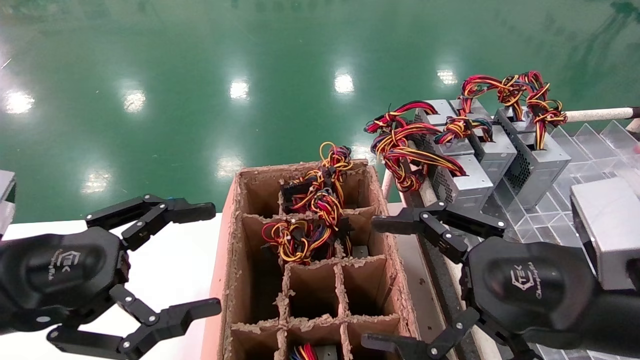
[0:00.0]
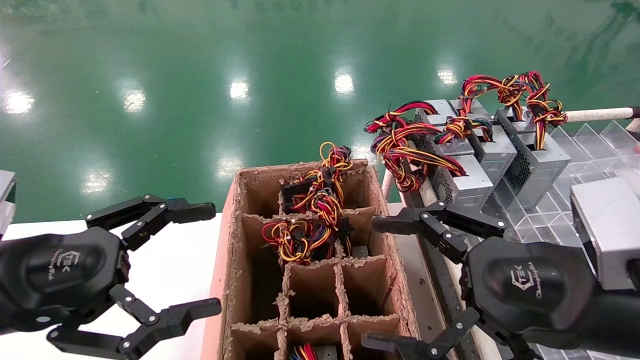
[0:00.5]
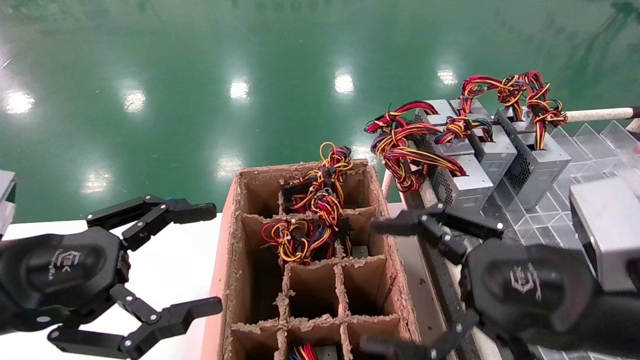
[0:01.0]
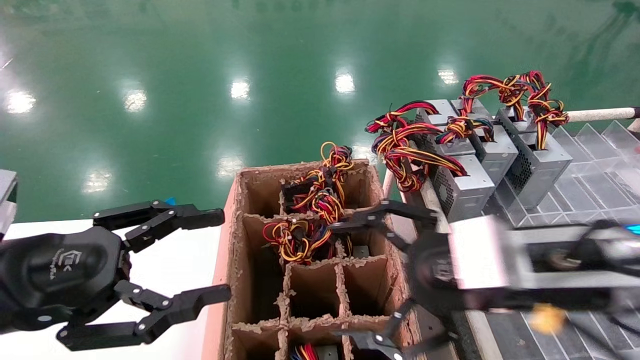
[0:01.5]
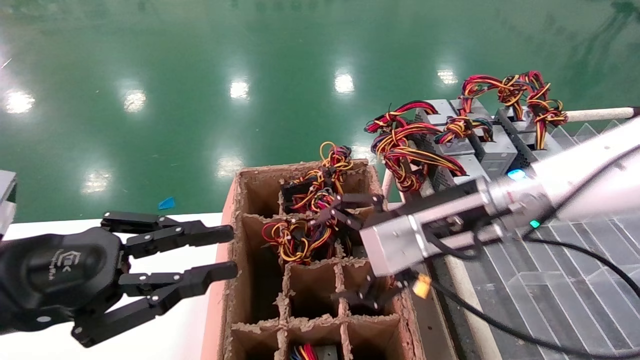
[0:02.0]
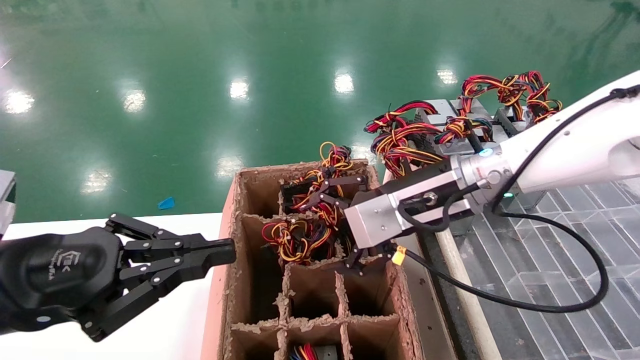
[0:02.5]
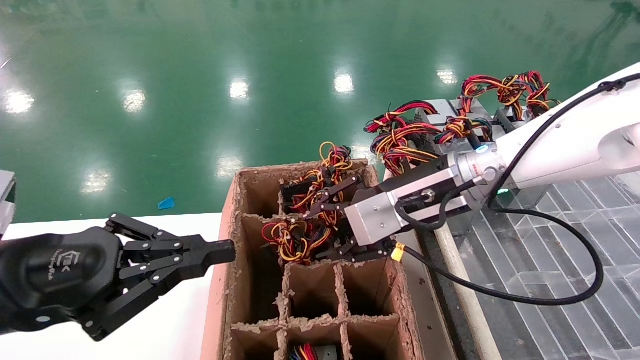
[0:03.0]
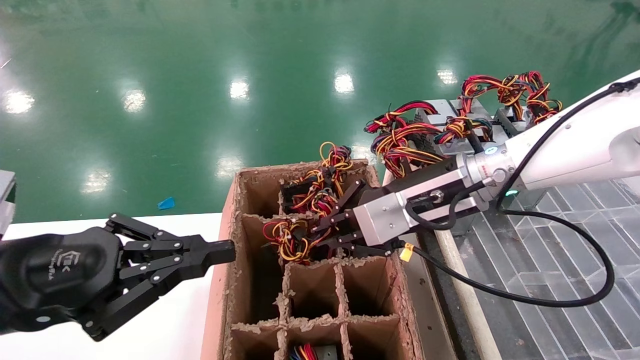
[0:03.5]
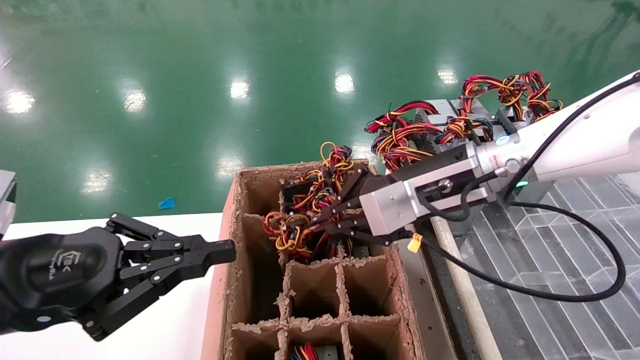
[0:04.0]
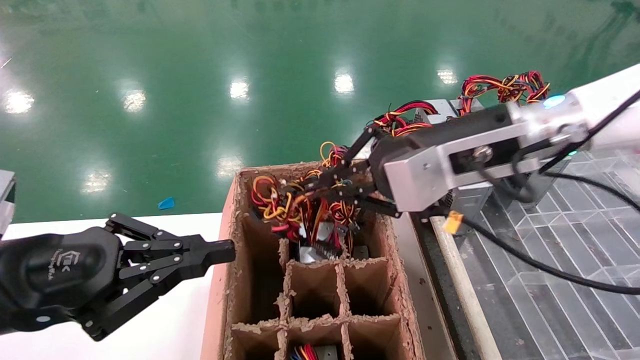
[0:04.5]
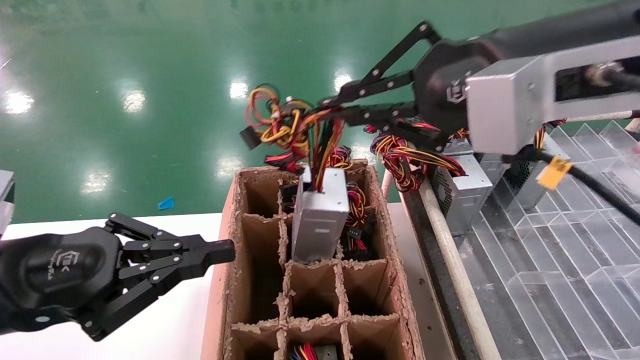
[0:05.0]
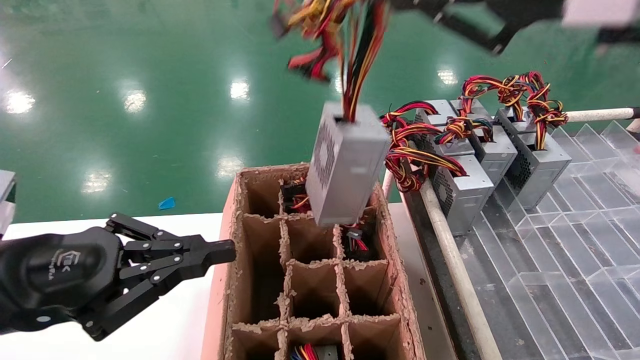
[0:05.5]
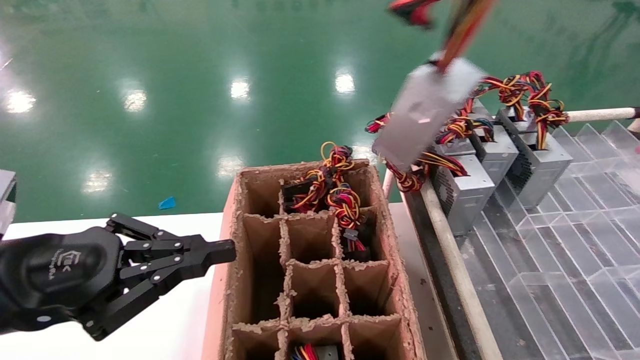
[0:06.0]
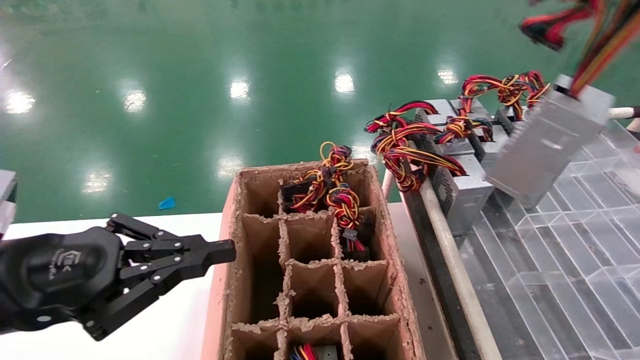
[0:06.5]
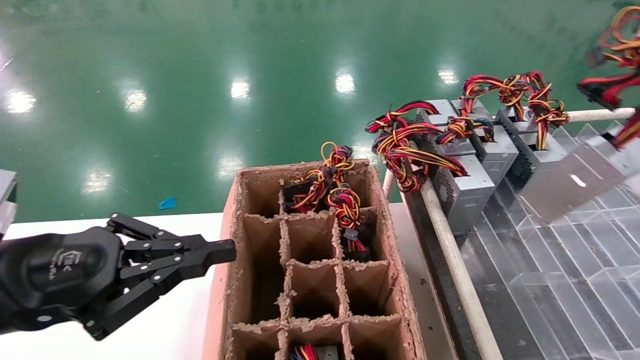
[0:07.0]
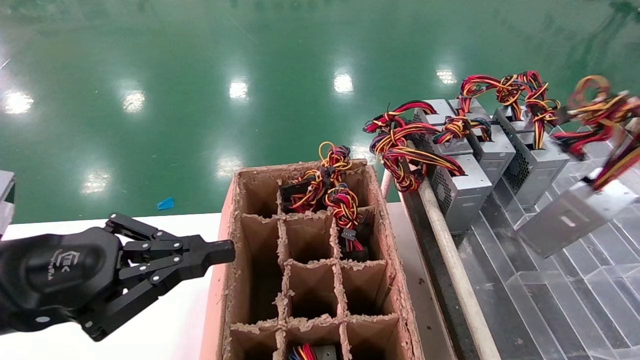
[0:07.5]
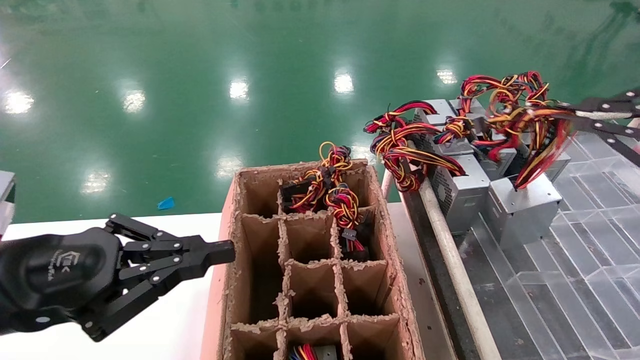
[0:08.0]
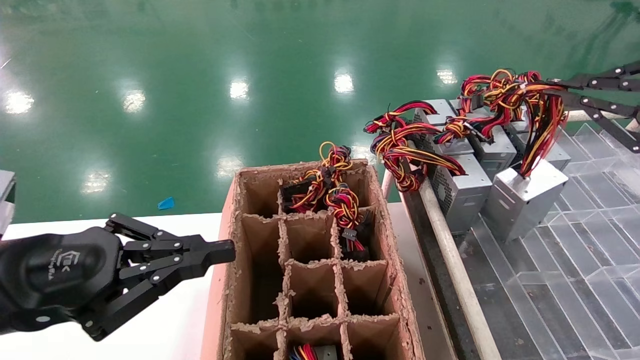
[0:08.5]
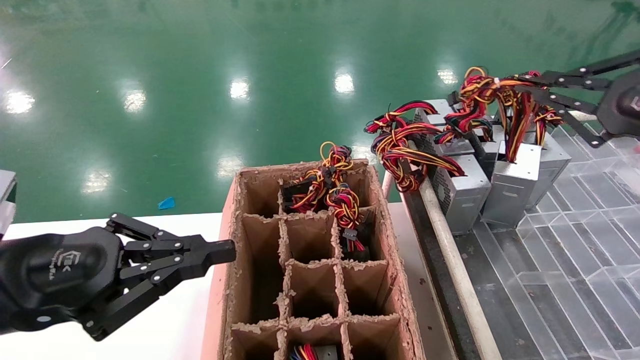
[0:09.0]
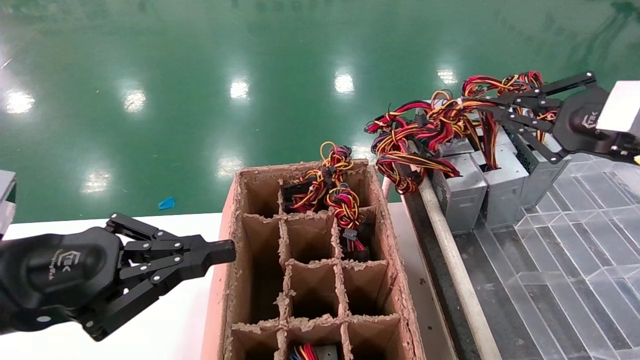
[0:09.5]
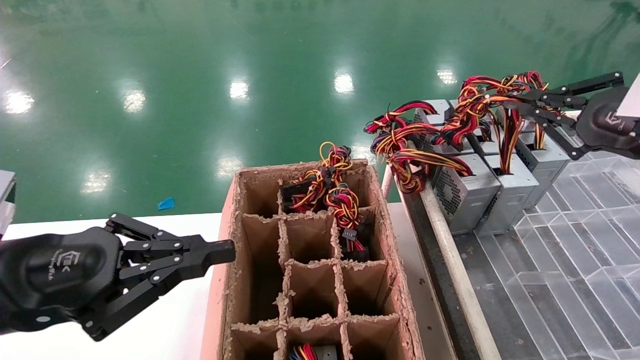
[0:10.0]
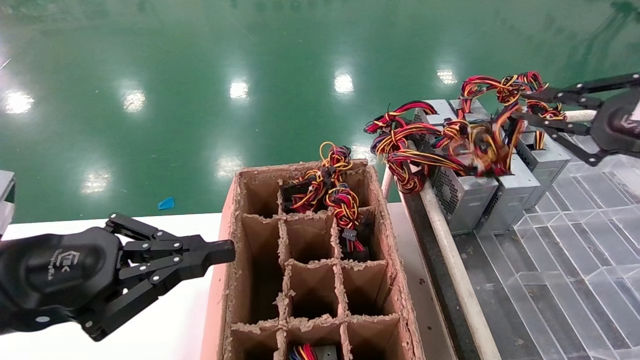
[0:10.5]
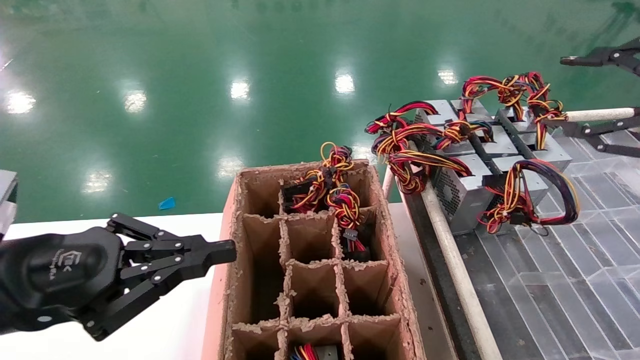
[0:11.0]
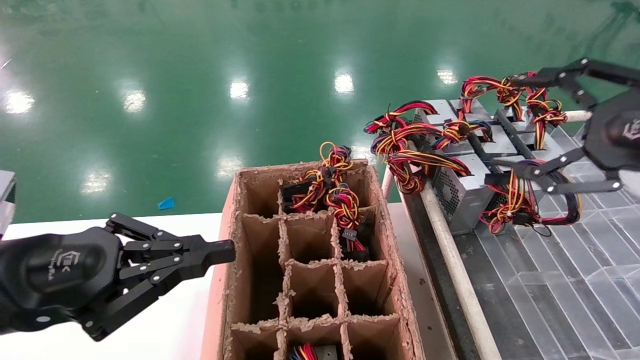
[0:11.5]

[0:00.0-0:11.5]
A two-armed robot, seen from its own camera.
Step, 0:01.5 to 0:03.5: Grab the main unit power supply from the containment box.
Step, 0:04.0 to 0:10.5: Place the main unit power supply in the designated area.
0:00.0 to 0:02.0: The left gripper closes, while the right gripper heads forward and to the left, covering approximately 15 cm.
0:02.0 to 0:04.0: The right gripper closes up. Meanwhile the left gripper closes up.
0:04.0 to 0:06.0: The right gripper shifts roughly 30 cm backward, upward and to the right.
0:06.0 to 0:07.5: The right gripper shifts roughly 20 cm to the right and downward.
0:07.5 to 0:09.5: The right gripper shifts roughly 15 cm forward and to the left.
0:09.5 to 0:11.5: The right gripper shifts by approximately 5 cm, and opens.

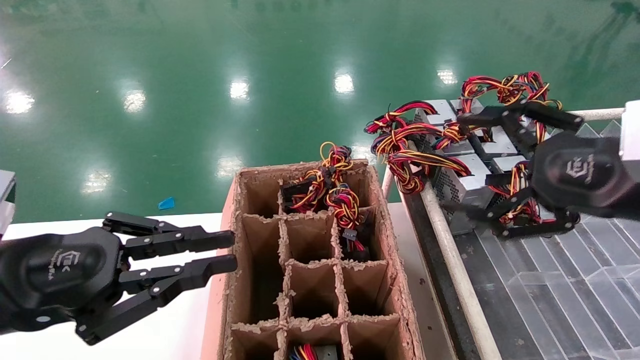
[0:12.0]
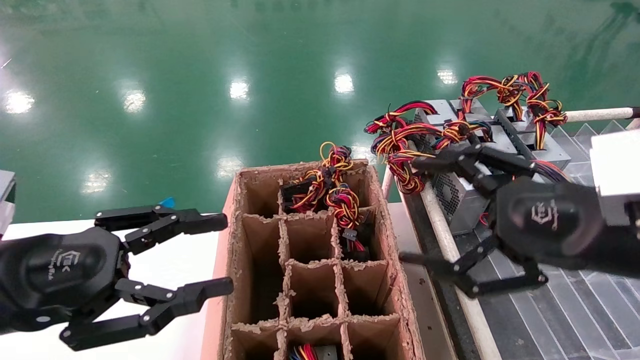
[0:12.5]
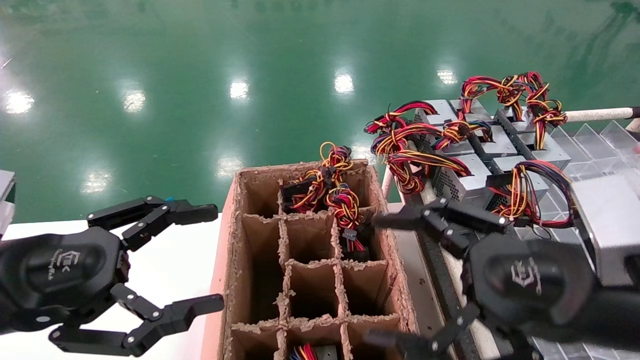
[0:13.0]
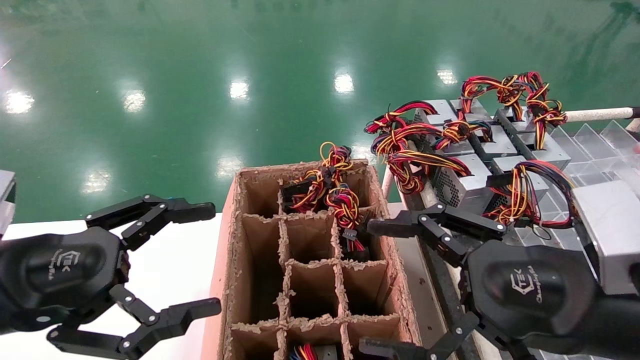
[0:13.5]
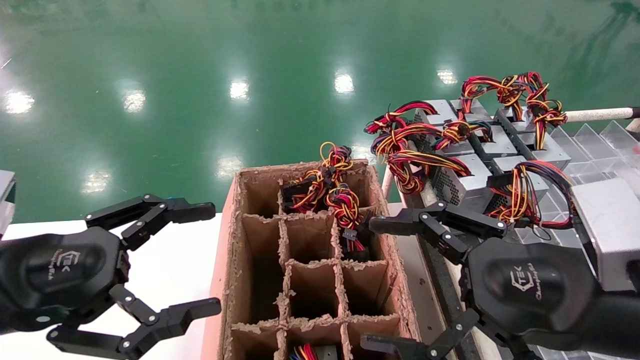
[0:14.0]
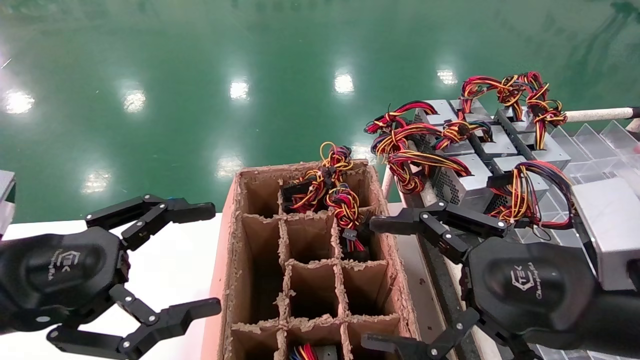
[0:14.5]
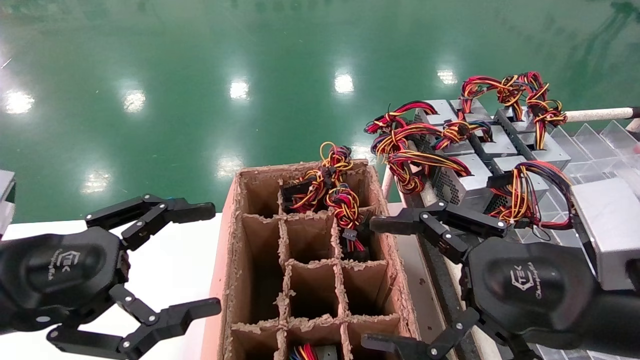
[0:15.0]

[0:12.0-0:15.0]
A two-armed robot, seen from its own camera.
0:12.0 to 0:13.5: The right gripper moves to the left, downward and backward, roughly 10 cm; the left gripper opens its fingers.
0:13.5 to 0:15.0: The two grippers keep their place.

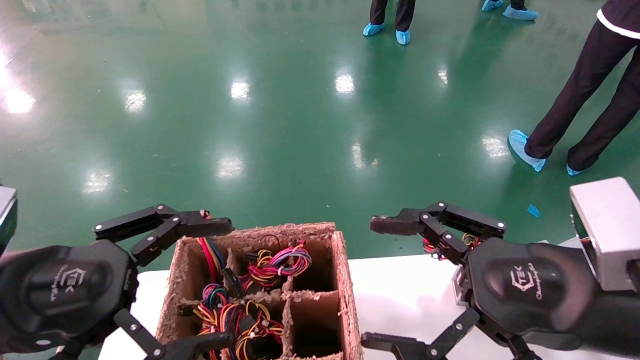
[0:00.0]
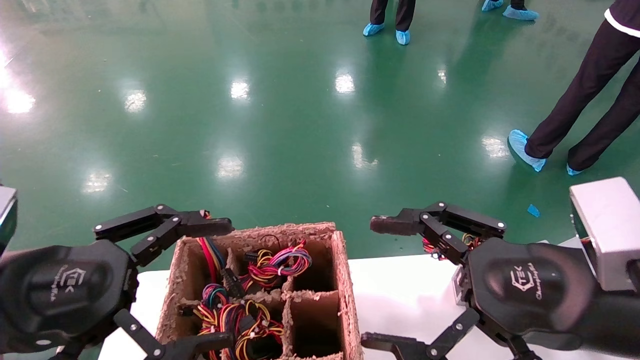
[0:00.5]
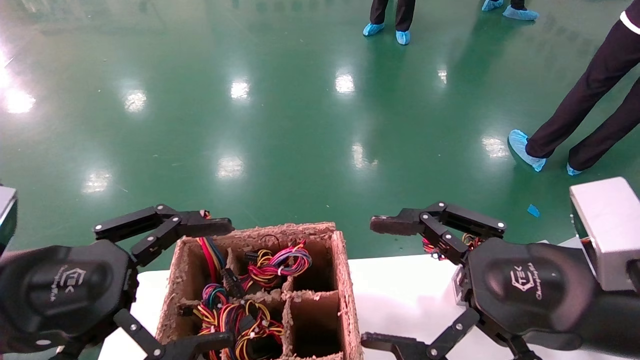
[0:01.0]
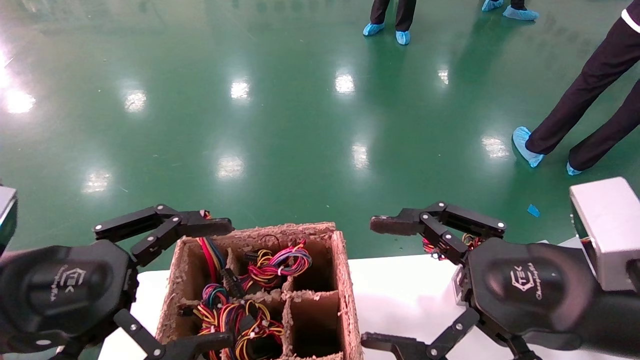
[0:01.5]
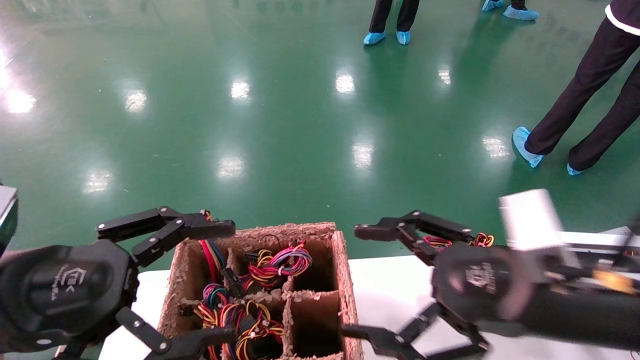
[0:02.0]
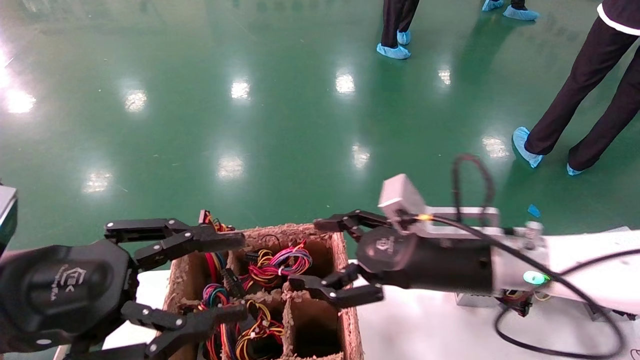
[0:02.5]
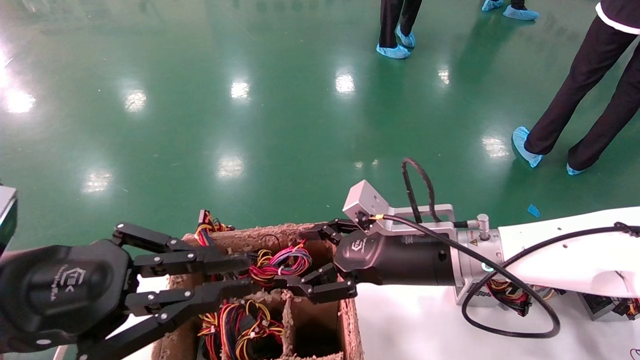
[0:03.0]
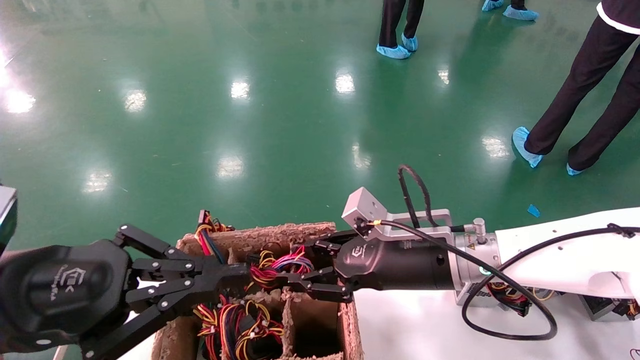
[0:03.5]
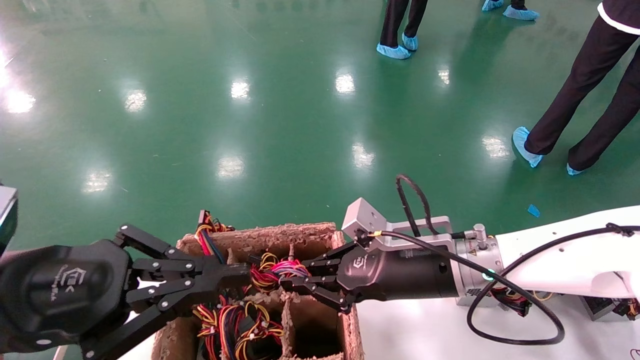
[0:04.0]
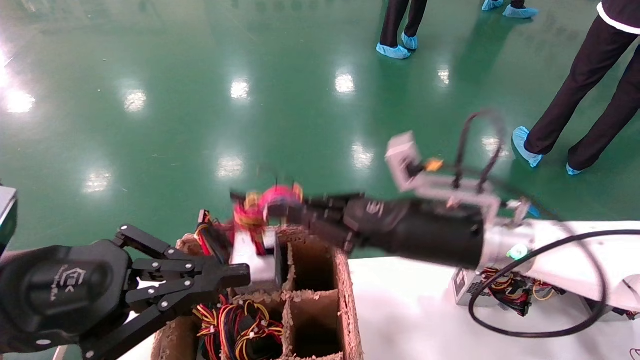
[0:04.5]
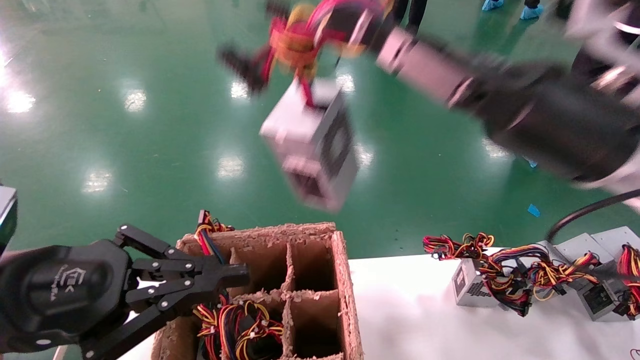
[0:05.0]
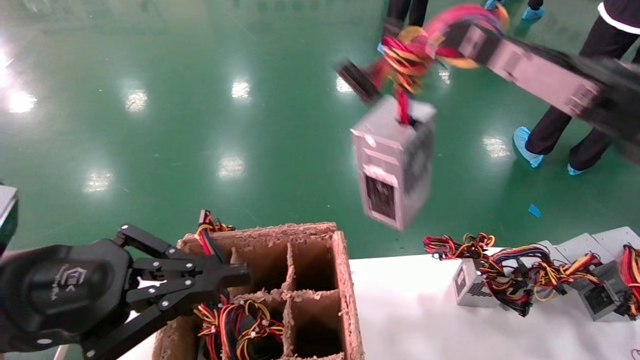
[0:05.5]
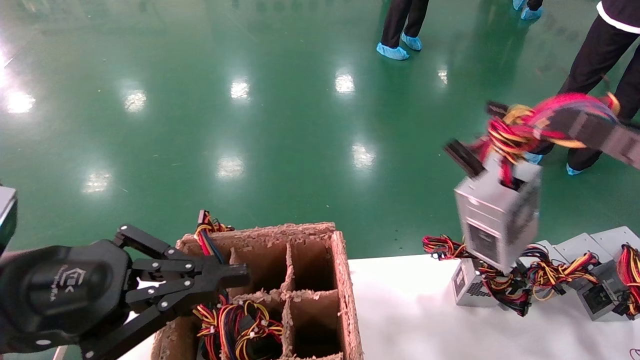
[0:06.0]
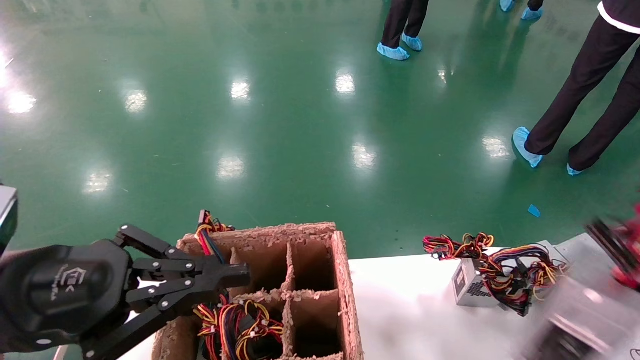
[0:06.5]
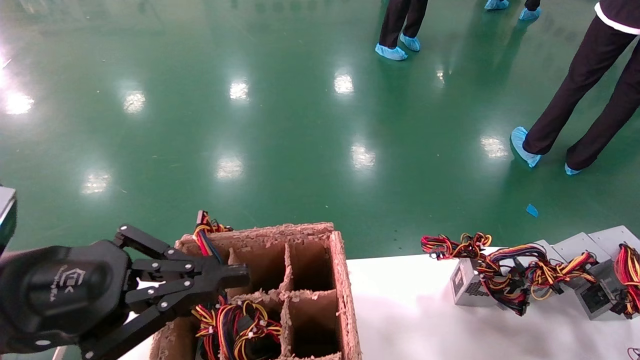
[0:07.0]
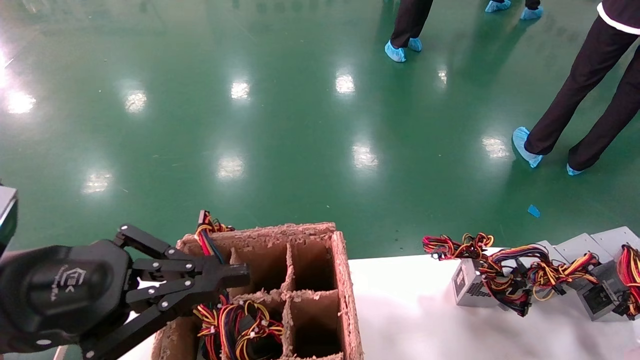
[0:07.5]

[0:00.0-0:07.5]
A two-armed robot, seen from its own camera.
Step, 0:02.0 to 0:03.5: Grab the main unit power supply from the containment box.
0:00.0 to 0:02.0: The right gripper shifts by some 5 cm.
0:02.0 to 0:04.0: The left gripper closes up, while the right gripper moves forward and to the left, about 15 cm, and closes up.
0:04.0 to 0:05.5: The right gripper moves to the right, upward and backward, some 25 cm.
0:05.5 to 0:07.5: The right gripper goes roughly 35 cm downward, backward and to the right.
